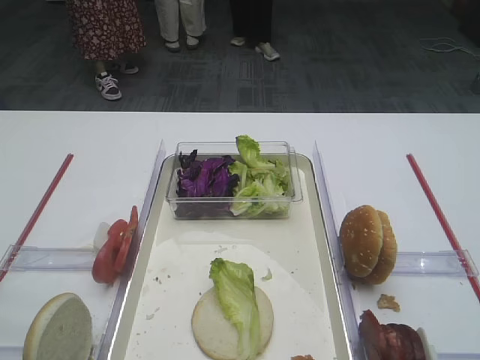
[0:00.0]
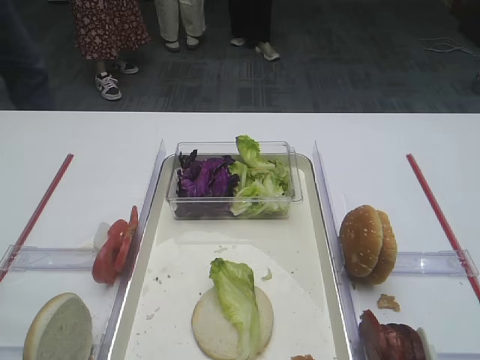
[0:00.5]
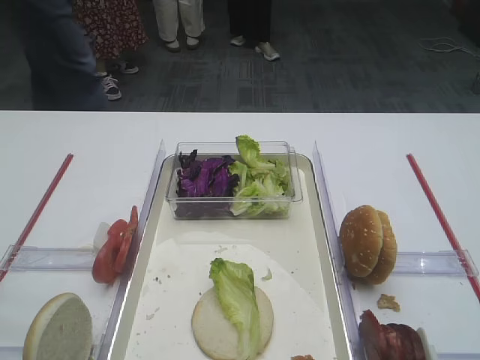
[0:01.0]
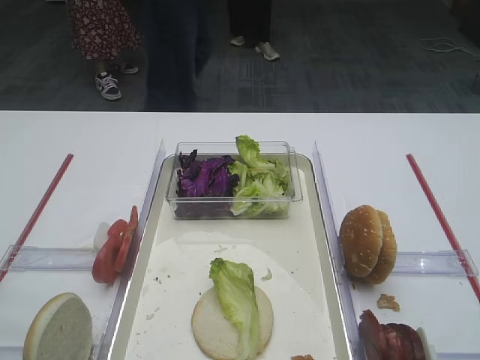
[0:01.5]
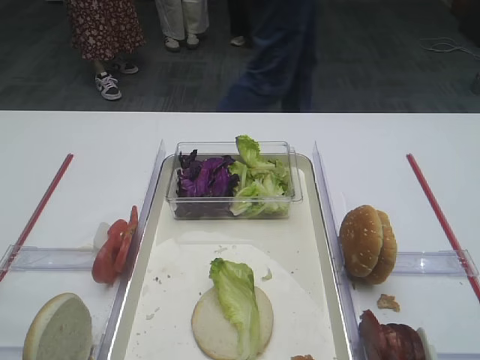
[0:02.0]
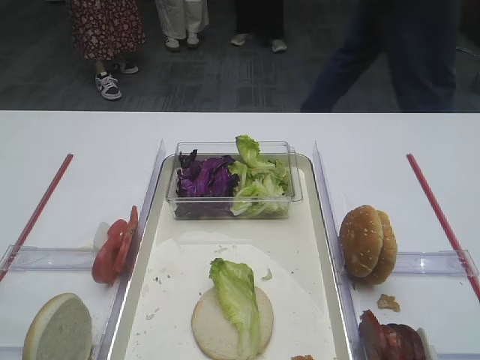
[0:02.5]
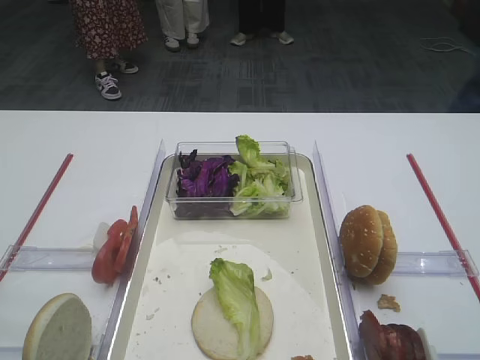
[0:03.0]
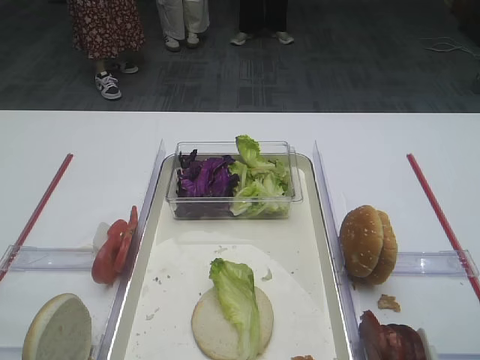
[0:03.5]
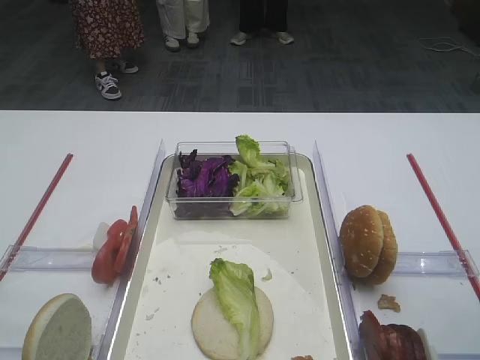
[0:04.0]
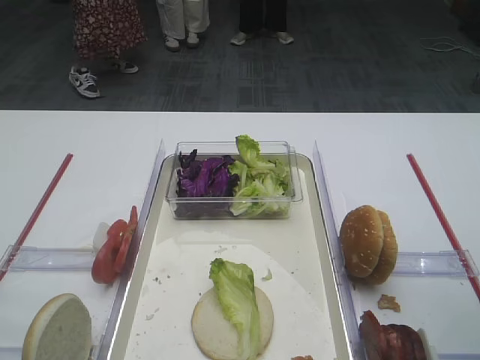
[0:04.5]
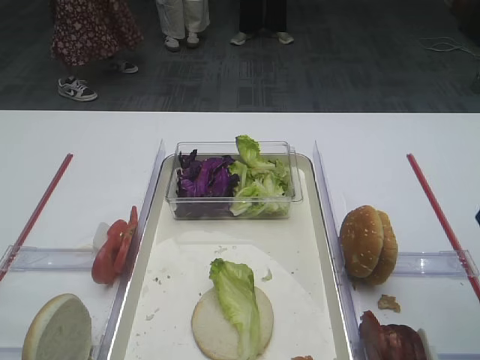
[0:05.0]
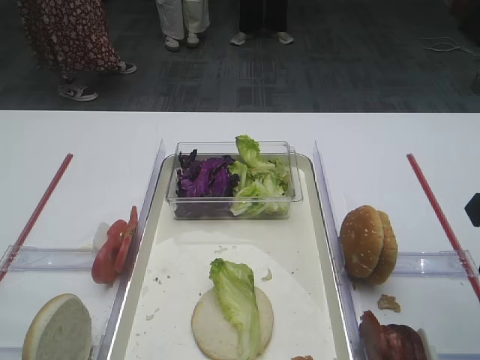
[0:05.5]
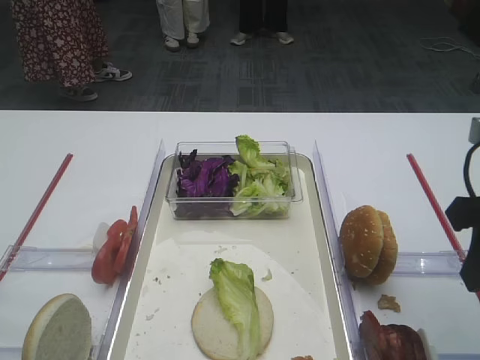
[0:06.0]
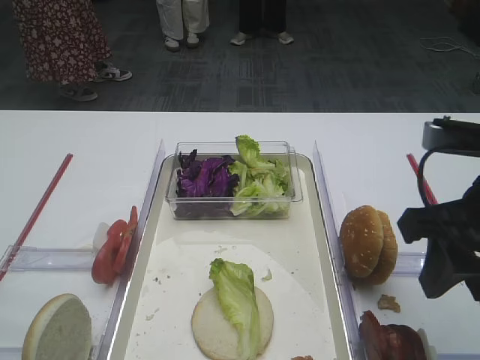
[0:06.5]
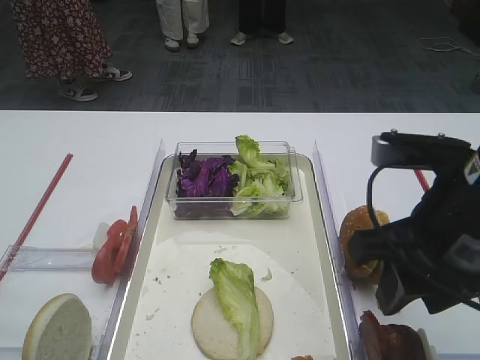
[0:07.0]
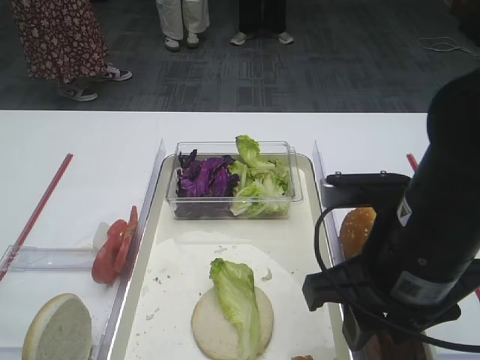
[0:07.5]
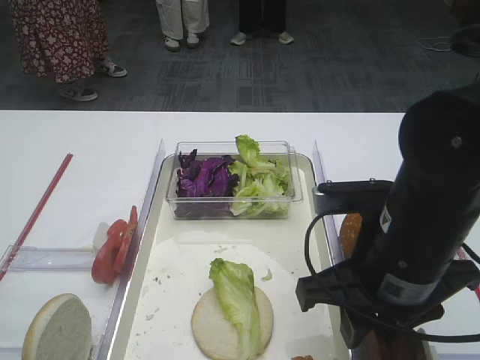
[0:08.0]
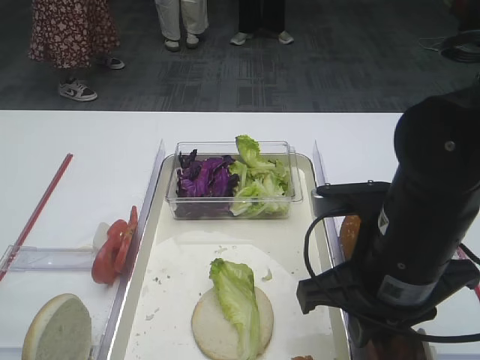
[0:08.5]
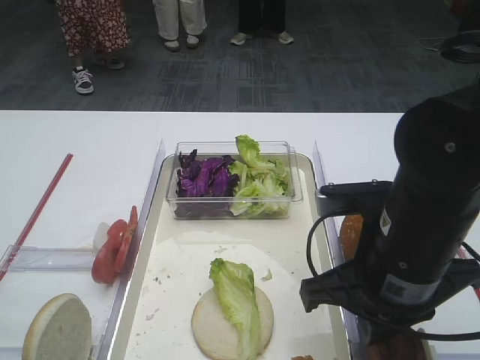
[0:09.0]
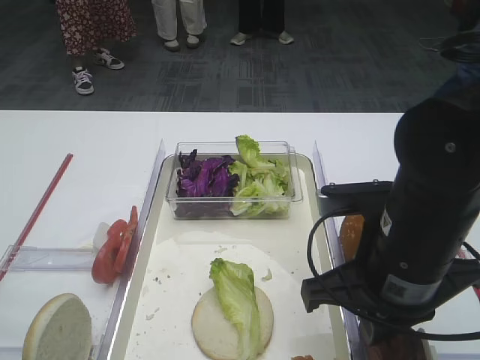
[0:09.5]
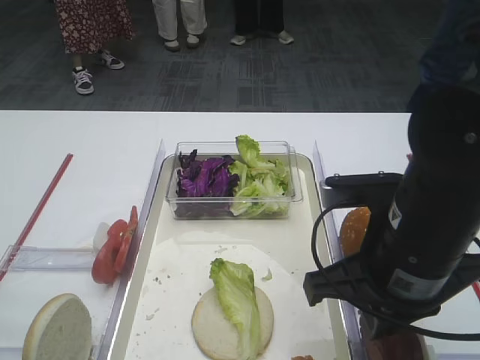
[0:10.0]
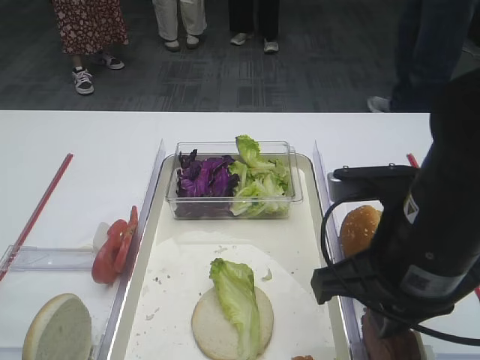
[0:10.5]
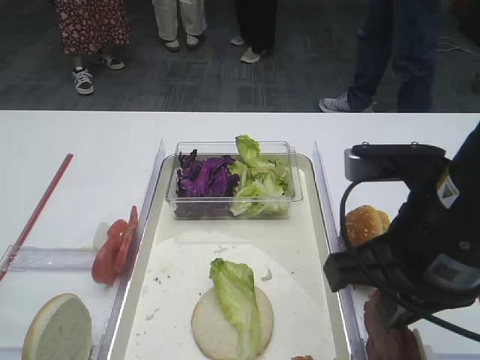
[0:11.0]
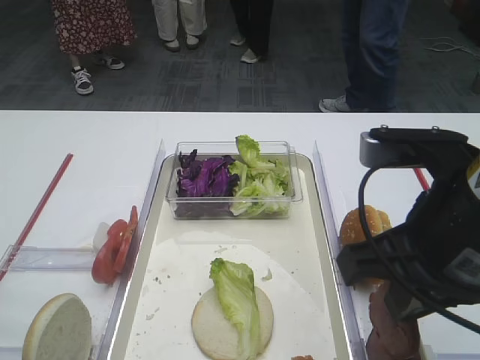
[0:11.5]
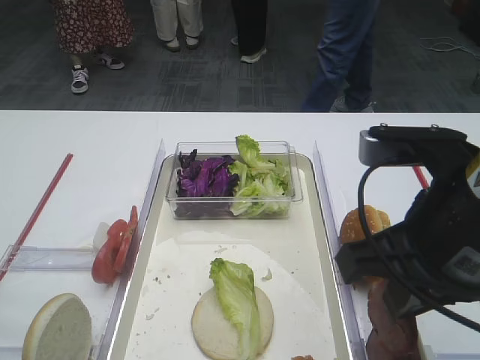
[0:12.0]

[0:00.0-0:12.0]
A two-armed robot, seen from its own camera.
Step, 0:00.0 to 0:11.0: Pick up the cutlet with the right gripper.
0:02.0 to 0:04.0: The right gripper moves forward, roughly 15 cm.
0:04.0 to 0:06.0: The grippers make only small movements.
0:06.0 to 0:08.0: The right gripper goes about 15 cm to the left and downward.
0:08.0 to 0:10.0: The right gripper closes its fingers.
0:10.0 to 0:12.0: The right gripper travels upward by approximately 5 cm.

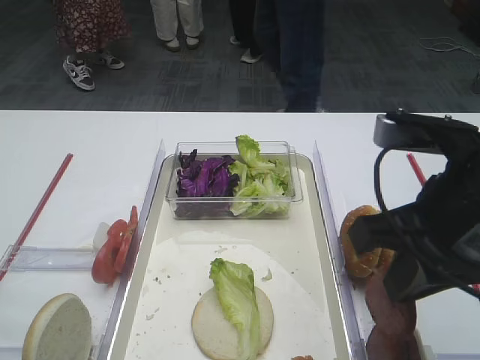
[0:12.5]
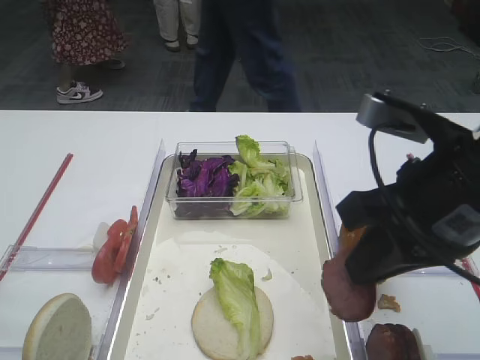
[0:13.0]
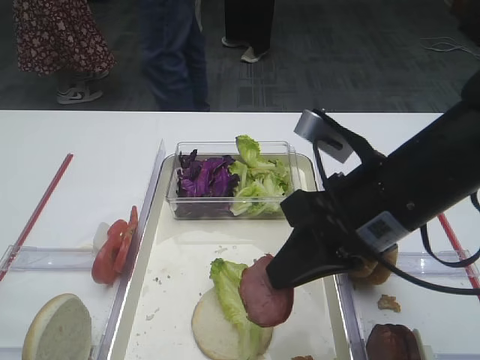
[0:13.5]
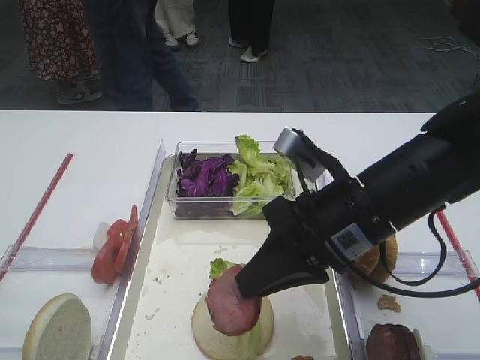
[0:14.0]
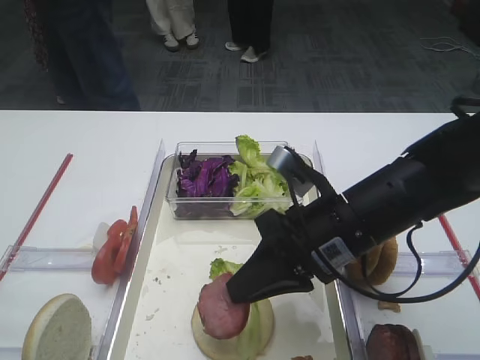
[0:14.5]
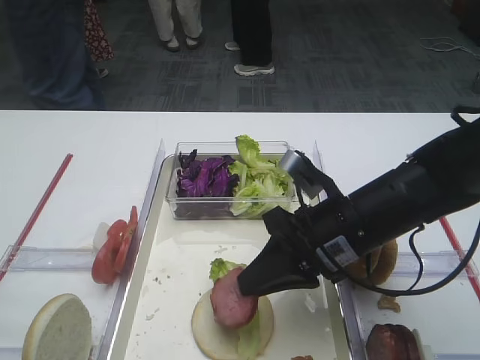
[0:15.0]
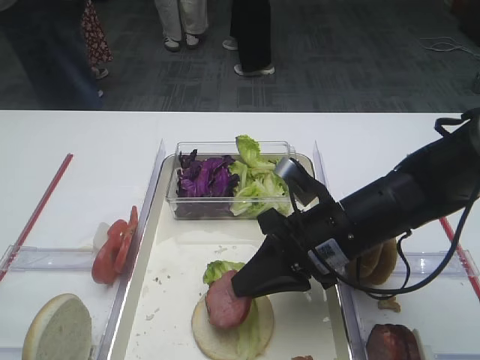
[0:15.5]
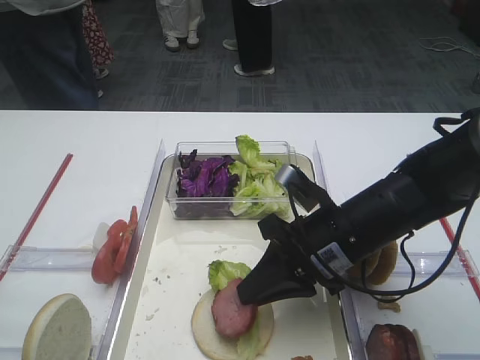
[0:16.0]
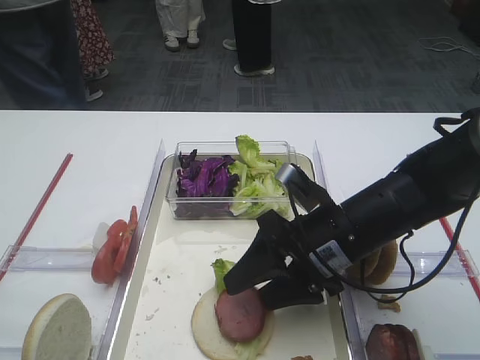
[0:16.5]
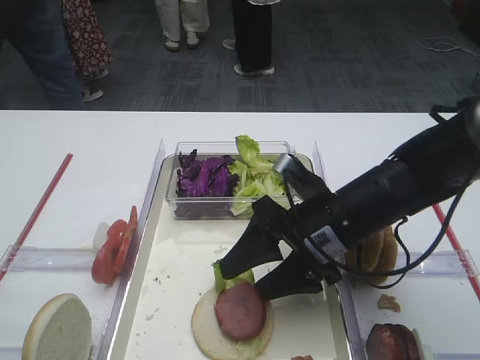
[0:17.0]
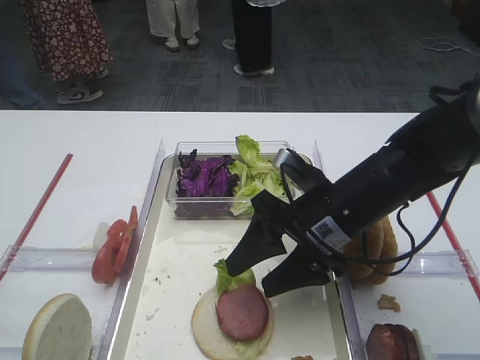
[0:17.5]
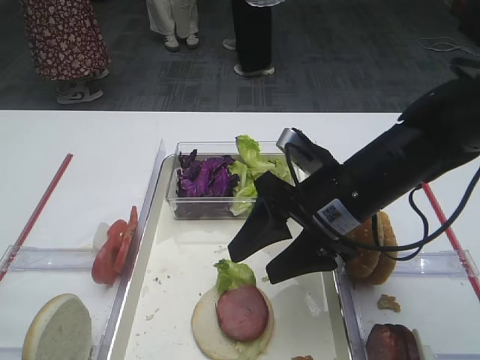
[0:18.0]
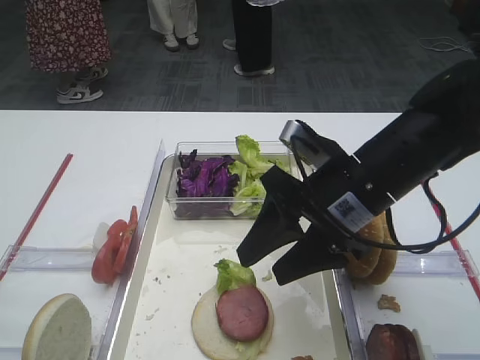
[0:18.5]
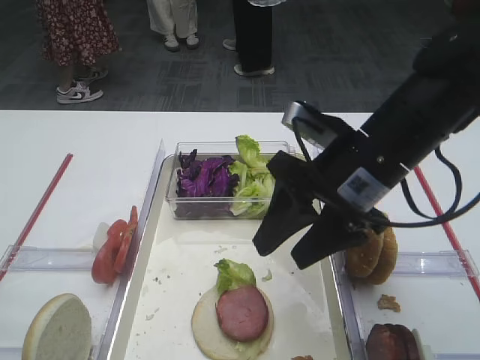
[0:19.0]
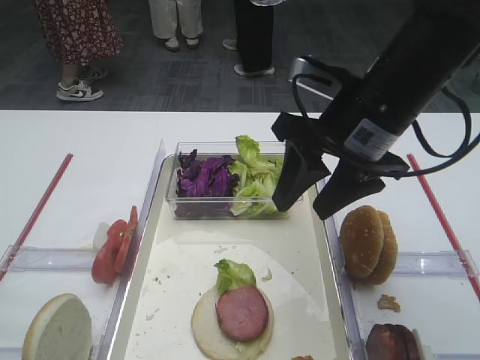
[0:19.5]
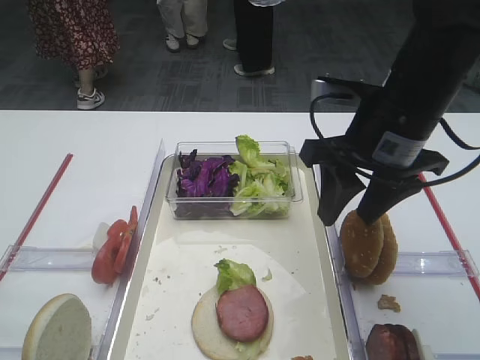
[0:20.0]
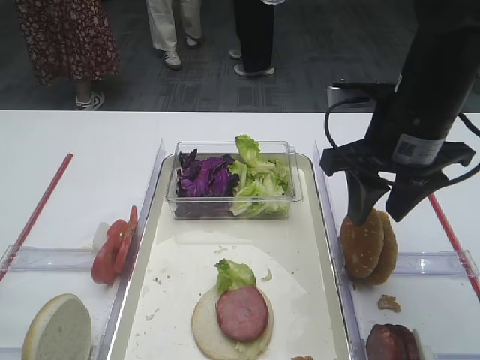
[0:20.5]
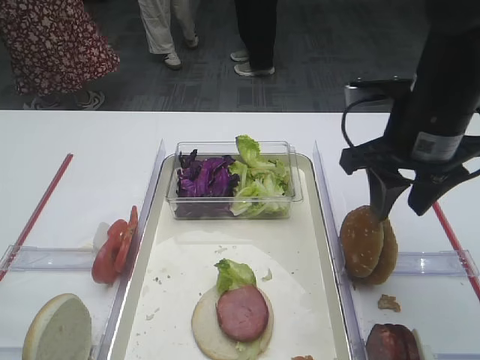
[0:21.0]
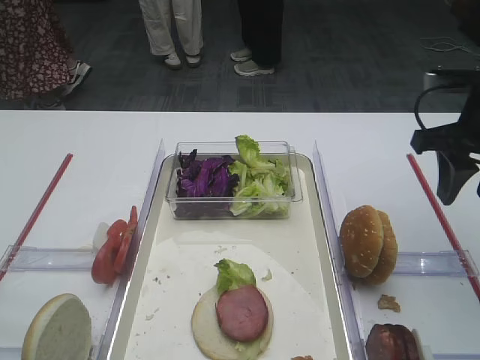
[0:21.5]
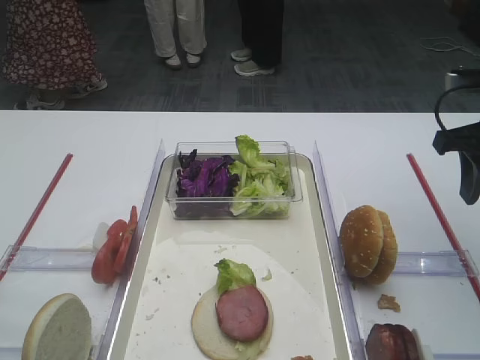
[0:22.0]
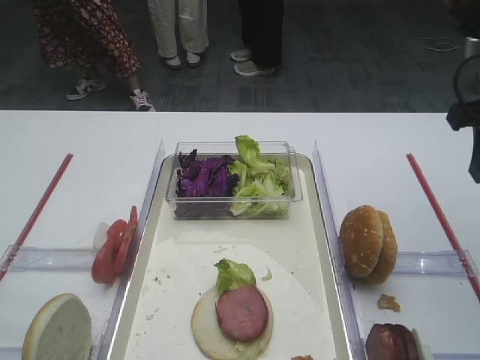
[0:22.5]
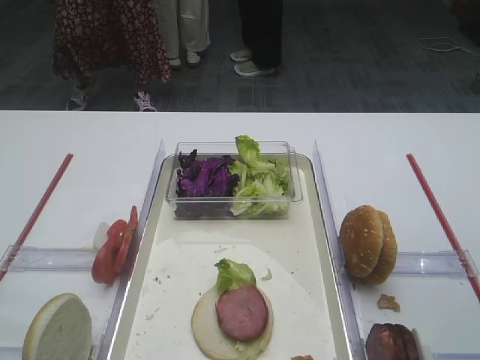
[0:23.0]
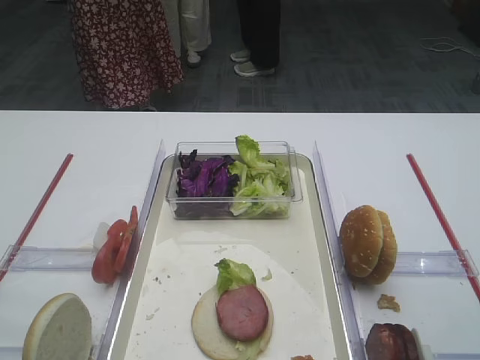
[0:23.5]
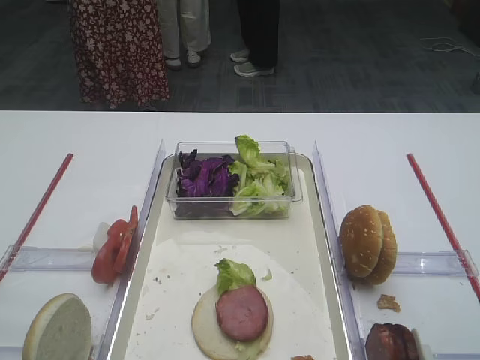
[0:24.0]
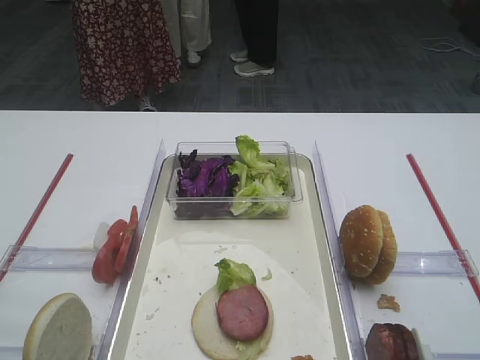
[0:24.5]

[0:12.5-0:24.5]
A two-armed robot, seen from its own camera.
Step, 0:12.5 to 0:17.5: Place the cutlet on the lettuce leaf with the right gripper.
0:12.5 to 0:14.5: The right gripper heads downward, forward and to the left, covering roughly 15 cm.
0:14.5 to 0:16.5: The right gripper opens its fingers.
0:16.5 to 0:18.5: The right gripper shifts about 5 cm upward.
0:18.5 to 0:20.5: The right gripper changes place by about 10 cm.
0:20.5 to 0:22.5: The right gripper moves to the right, about 10 cm.
0:22.5 to 0:24.5: The right gripper goes roughly 20 cm backward.

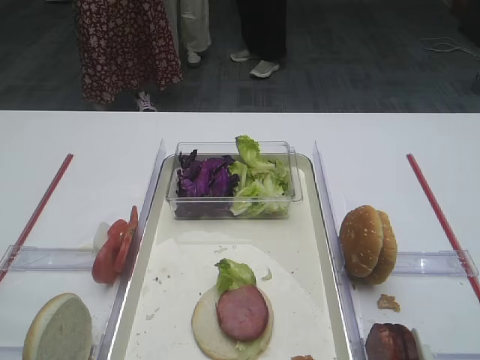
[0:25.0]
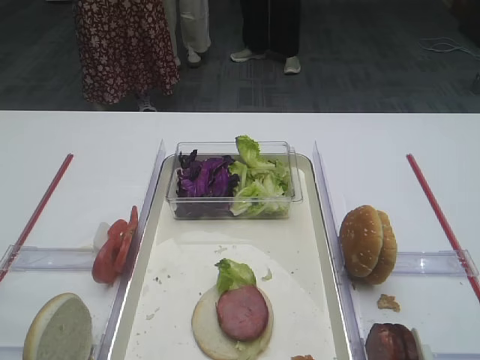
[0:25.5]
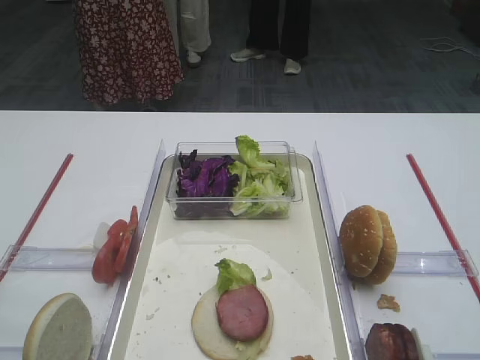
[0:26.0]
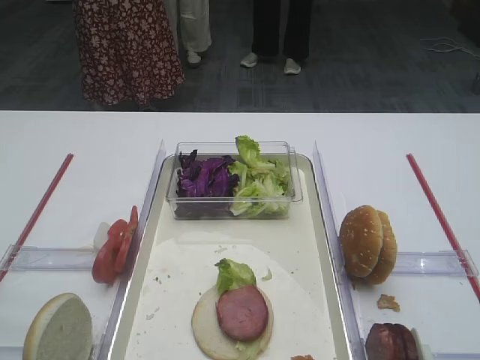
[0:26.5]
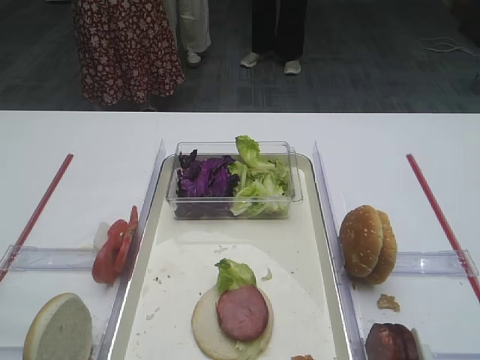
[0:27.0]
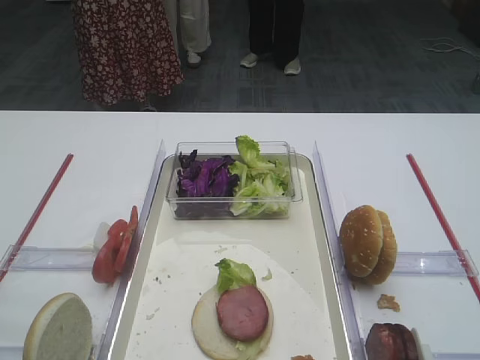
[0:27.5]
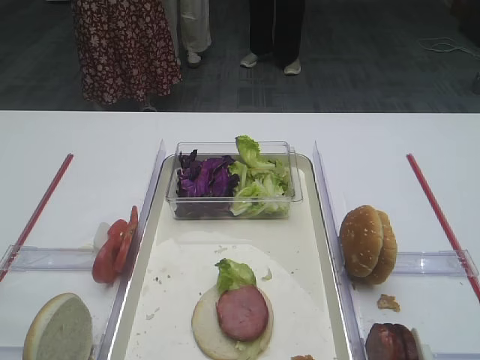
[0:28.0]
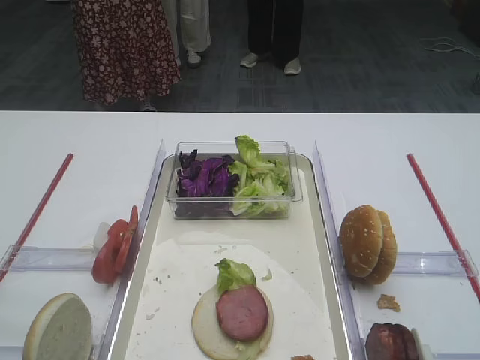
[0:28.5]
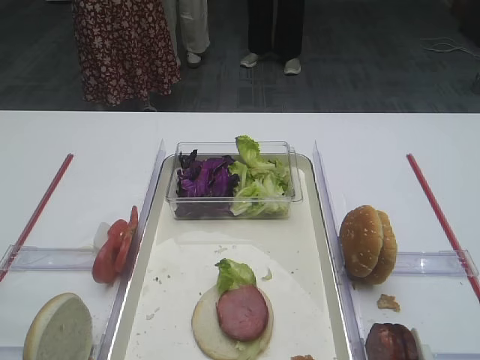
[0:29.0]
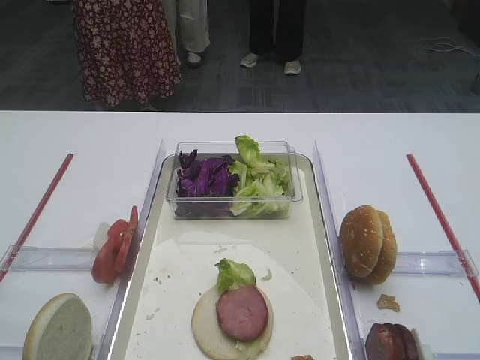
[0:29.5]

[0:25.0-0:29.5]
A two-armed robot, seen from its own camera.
0:27.0 to 0:29.5: Neither gripper changes place.
